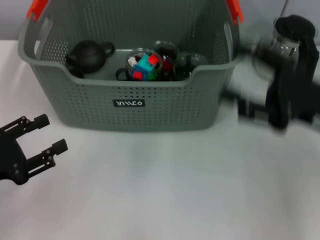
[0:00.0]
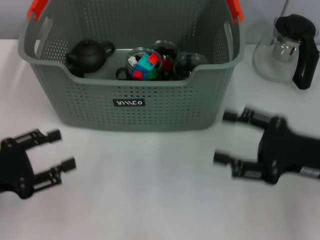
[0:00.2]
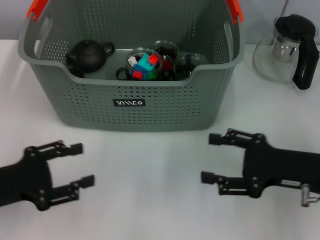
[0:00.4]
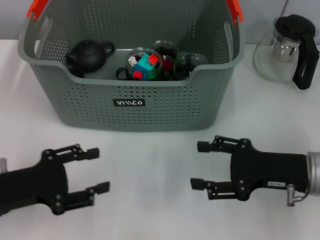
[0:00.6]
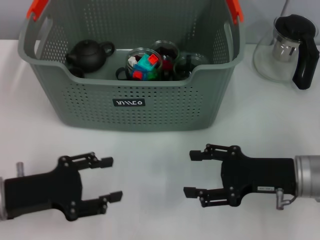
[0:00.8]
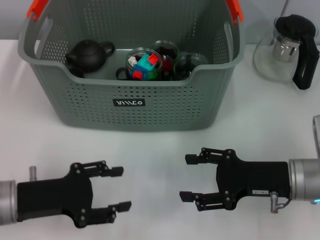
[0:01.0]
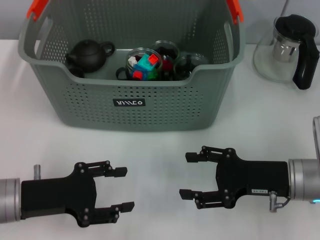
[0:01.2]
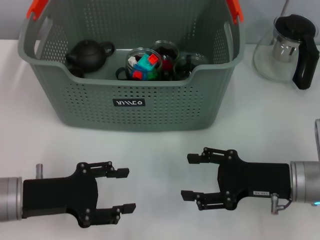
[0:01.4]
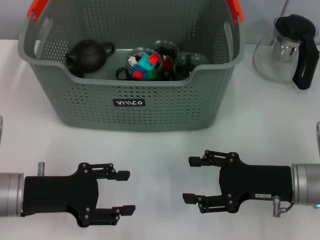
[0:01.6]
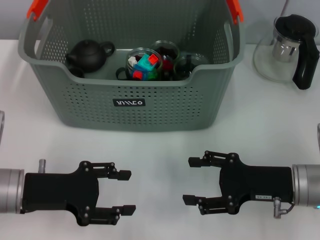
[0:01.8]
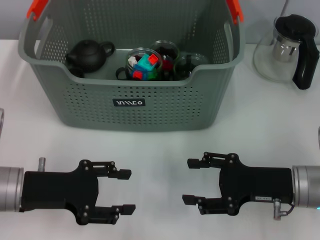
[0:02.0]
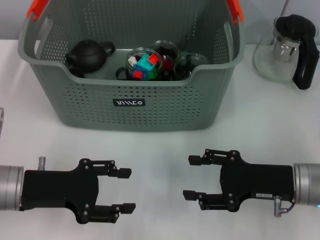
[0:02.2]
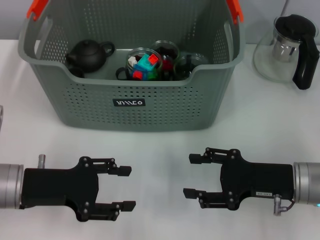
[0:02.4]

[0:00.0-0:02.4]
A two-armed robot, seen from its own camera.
Task of the whole recording: pick up the teacup on the table and place it into the storage bin, pick up the block on the table and place it into the storage bin.
0:00.0 to 0:01.2: The left gripper heads to the right, covering some 5 cm; the right gripper travels downward by roughly 10 cm.
0:01.2 to 0:02.4: The grippers move only a little.
